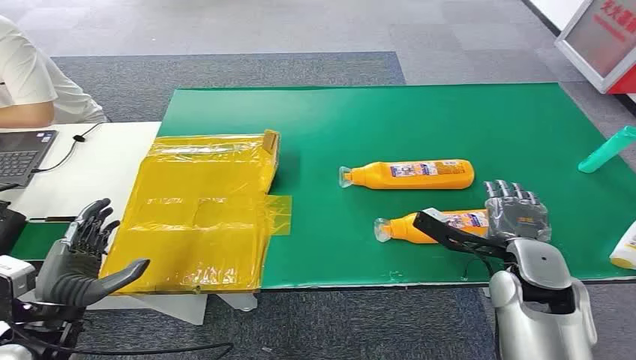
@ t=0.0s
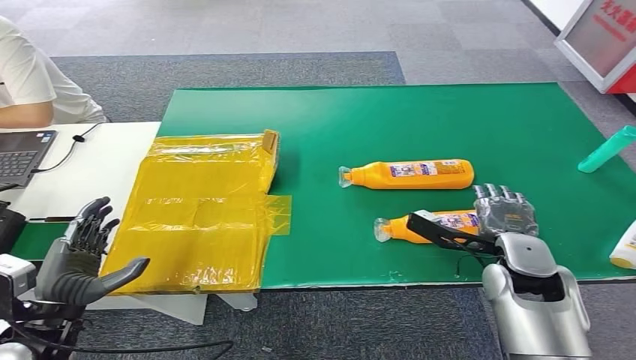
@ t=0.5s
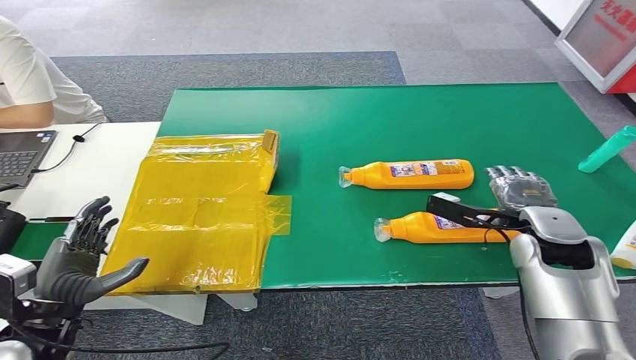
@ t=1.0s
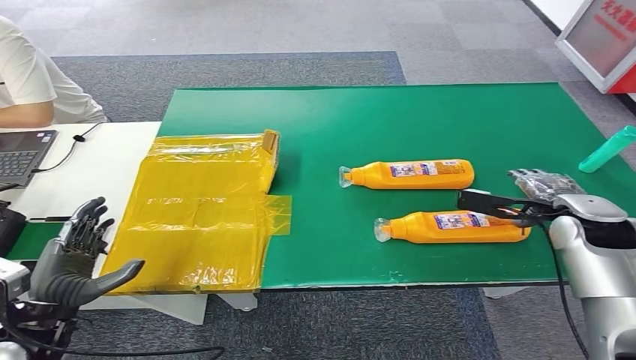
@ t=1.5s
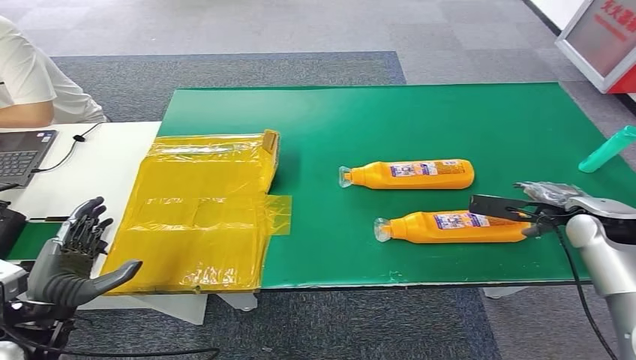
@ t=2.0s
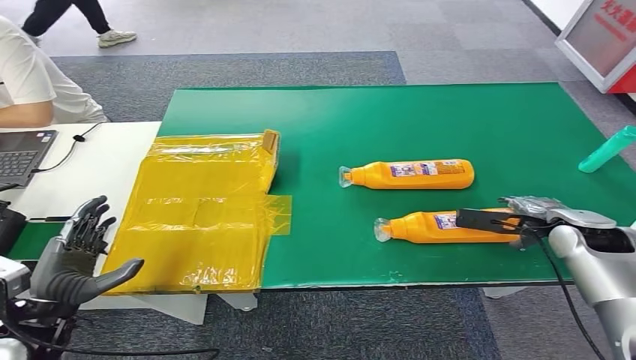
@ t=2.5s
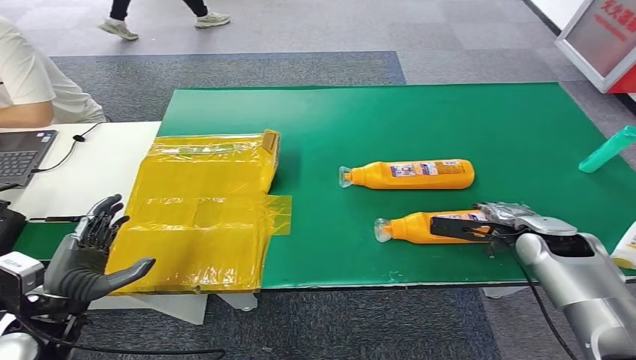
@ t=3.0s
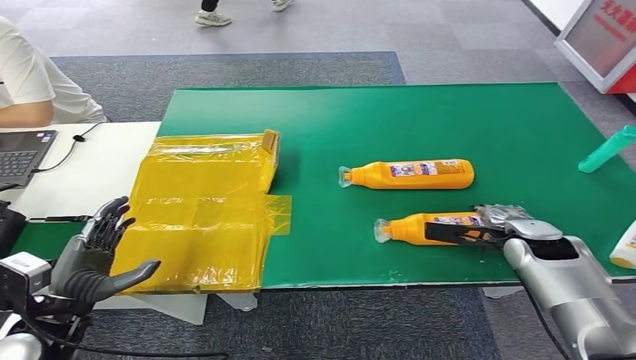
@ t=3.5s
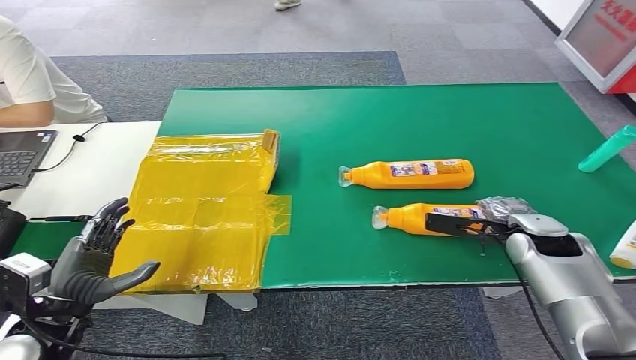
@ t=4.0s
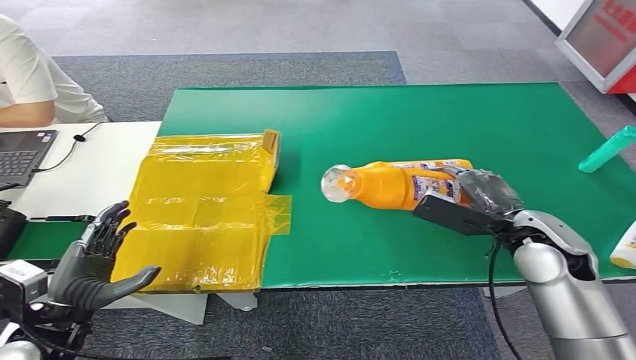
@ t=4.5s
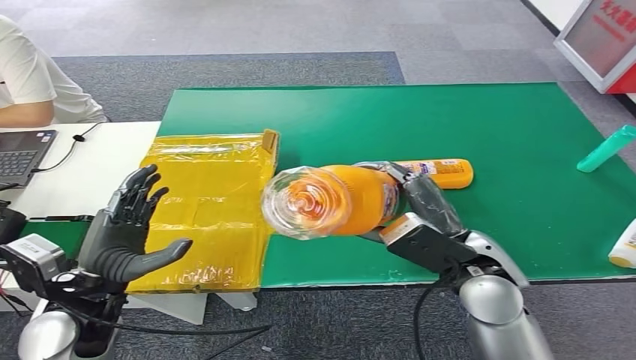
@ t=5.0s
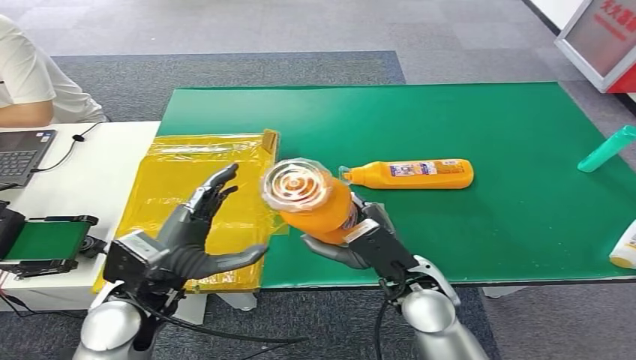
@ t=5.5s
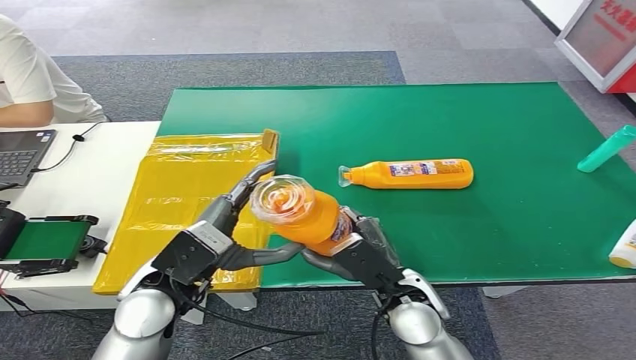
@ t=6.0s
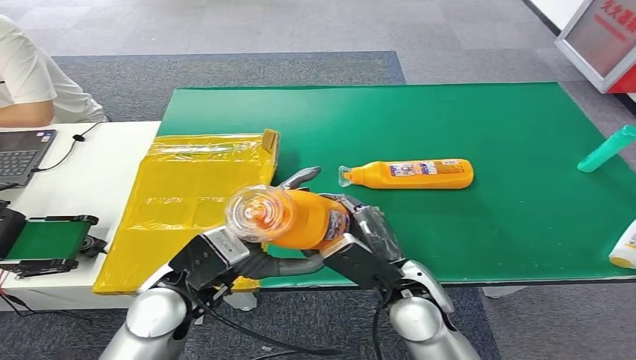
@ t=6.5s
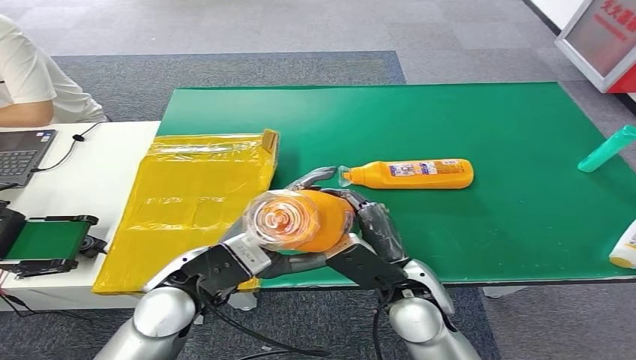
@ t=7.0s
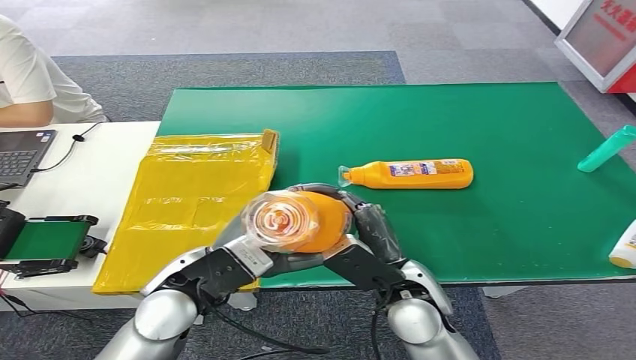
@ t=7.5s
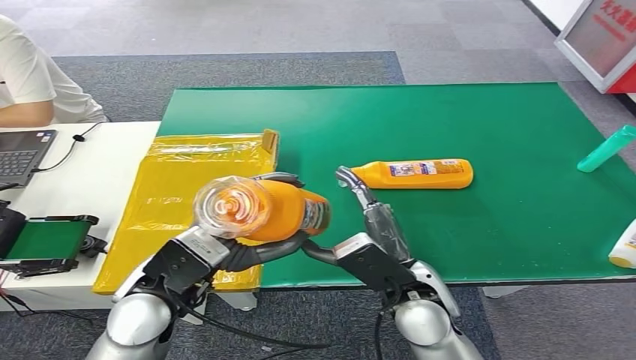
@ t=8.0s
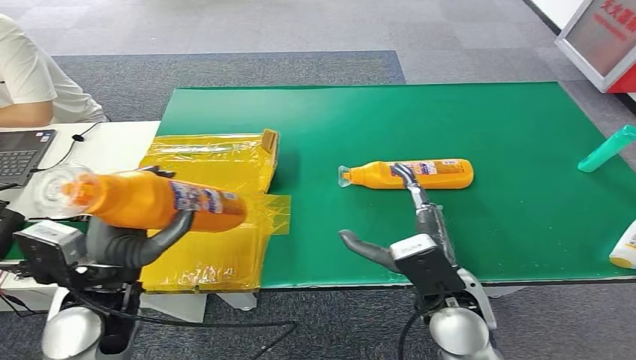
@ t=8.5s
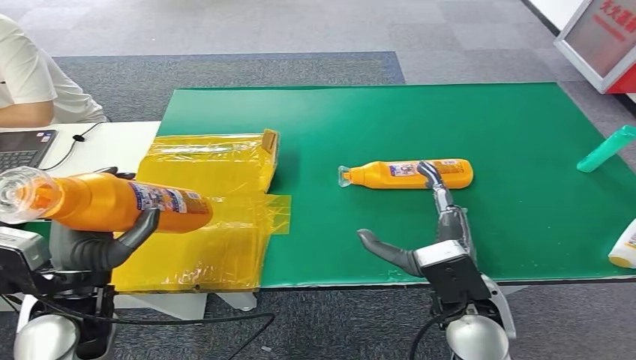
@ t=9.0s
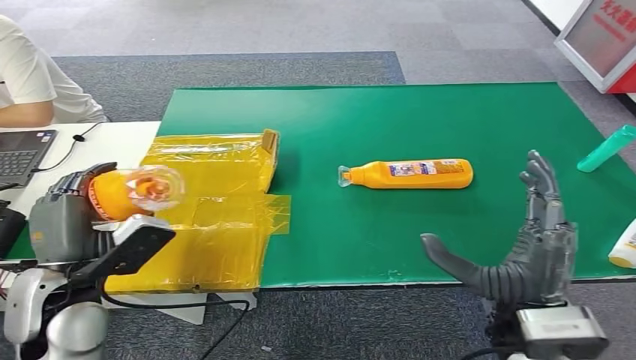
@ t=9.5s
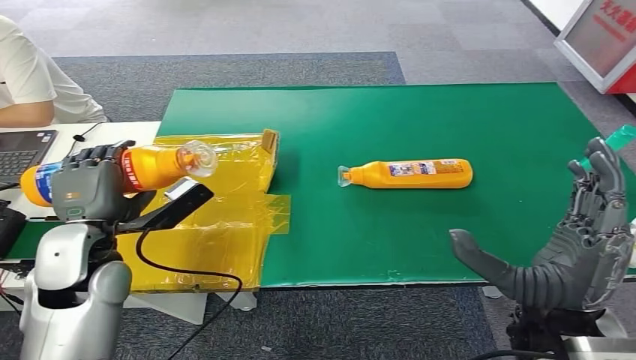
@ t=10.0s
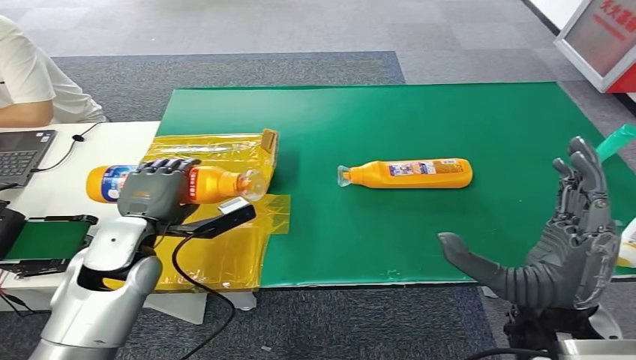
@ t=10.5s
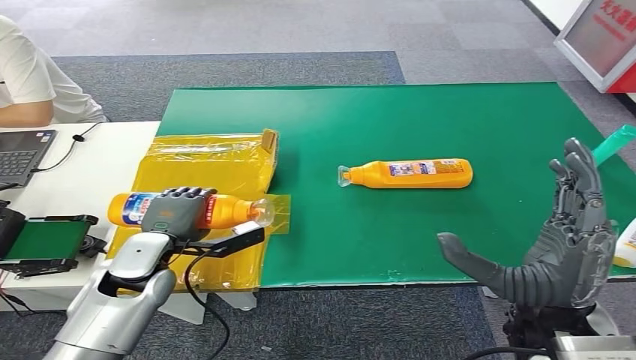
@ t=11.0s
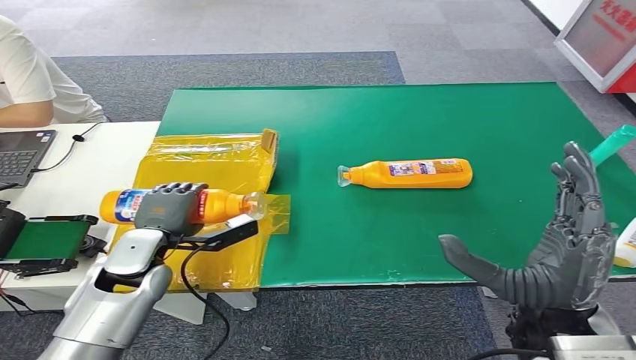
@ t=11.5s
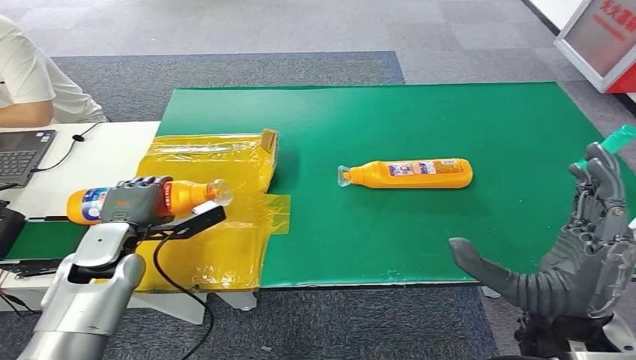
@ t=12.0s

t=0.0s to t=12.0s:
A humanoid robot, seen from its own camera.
Step, t=0.0s to t=4.5s: Pick up the bottle from the table.
t=2.0s to t=4.0s: The right hand is displaced to the left and downward by roughly 10 cm.
t=6.0s to t=8.0s: The hands move only a little.
t=10.0s to t=12.0s: The left hand travels downward by roughly 10 cm.

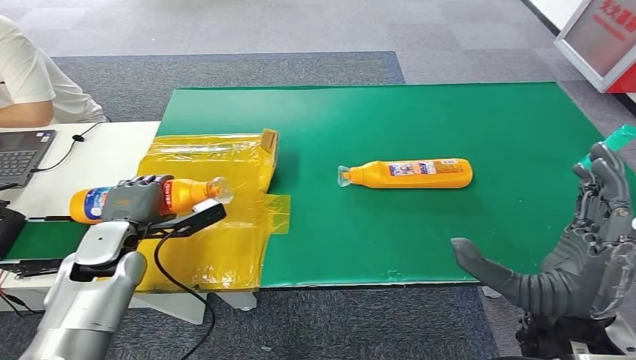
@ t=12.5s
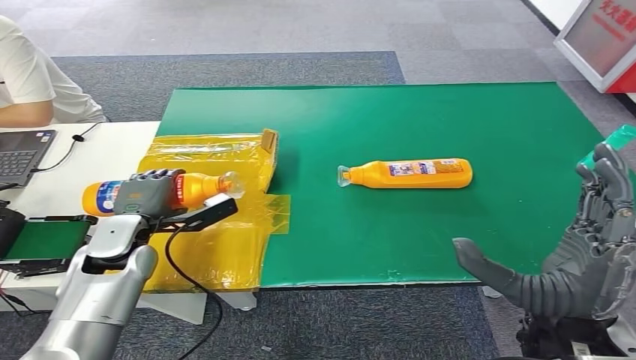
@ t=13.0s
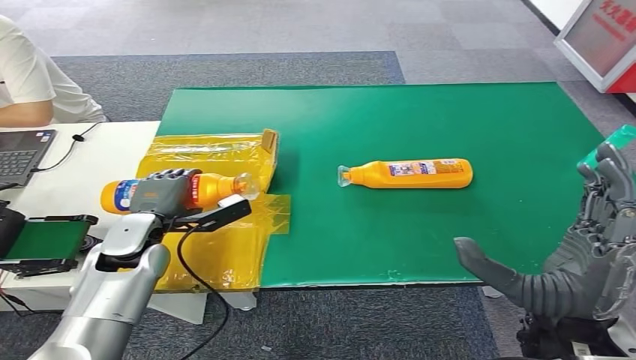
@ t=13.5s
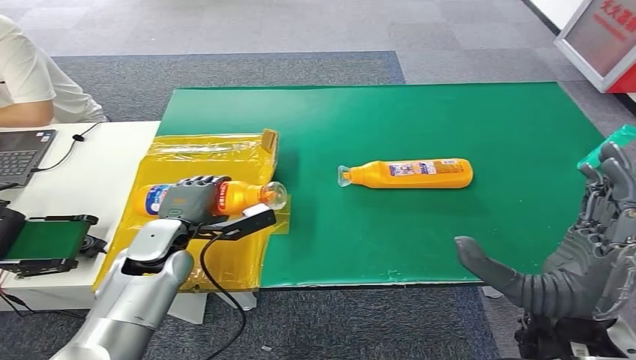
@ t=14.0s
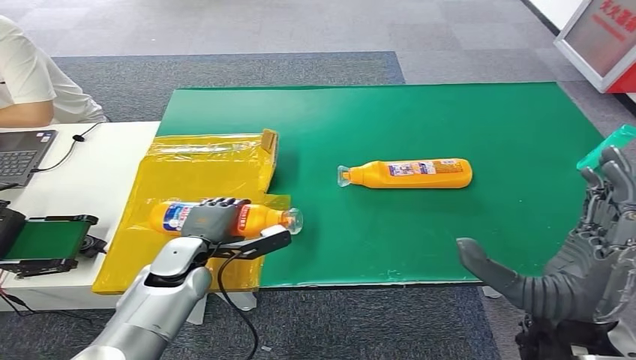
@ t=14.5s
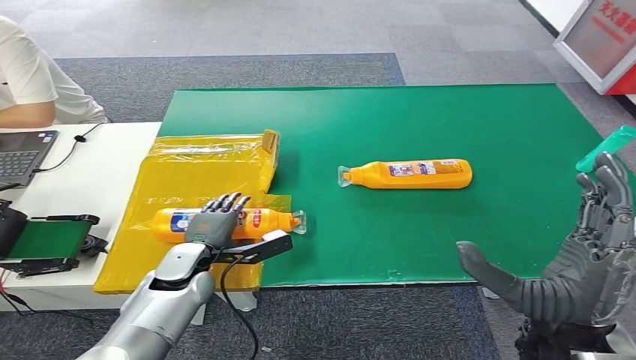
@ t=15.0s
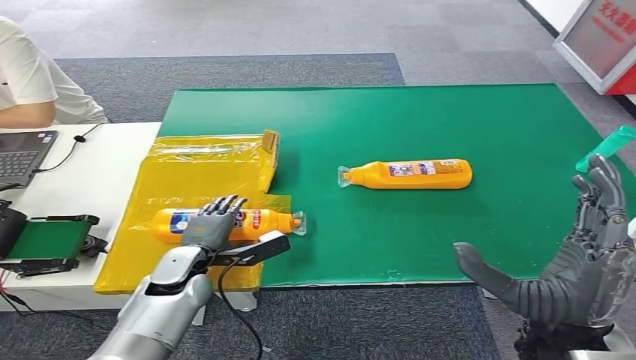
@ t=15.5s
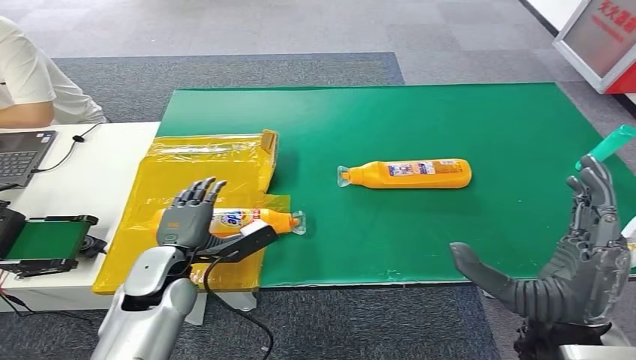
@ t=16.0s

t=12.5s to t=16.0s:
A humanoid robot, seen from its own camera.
Step, t=12.5s to t=16.0s: Turn the bottle to the front side.
t=12.5s to t=14.5s: The left hand shifts roughly 10 cm to the right and downward.
t=14.5s to t=16.0s: The left hand moves some 5 cm.
